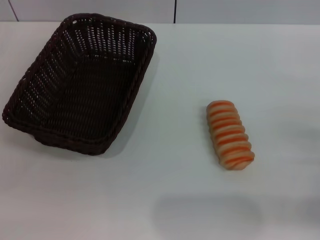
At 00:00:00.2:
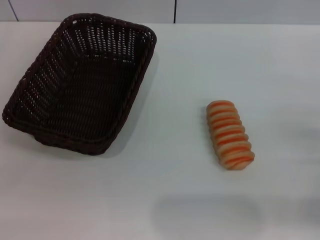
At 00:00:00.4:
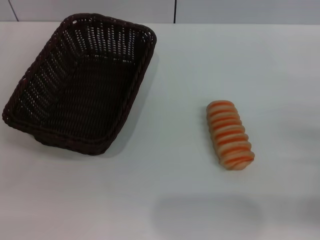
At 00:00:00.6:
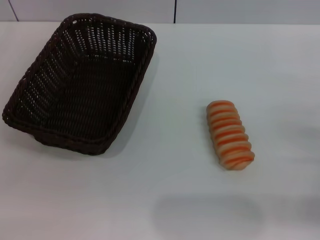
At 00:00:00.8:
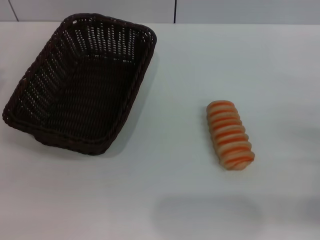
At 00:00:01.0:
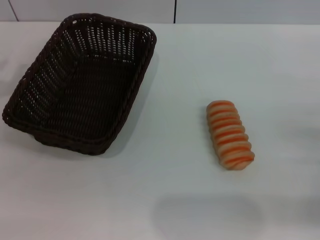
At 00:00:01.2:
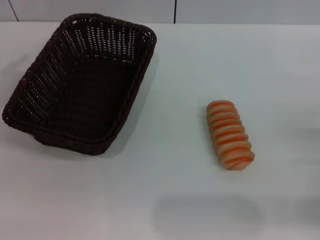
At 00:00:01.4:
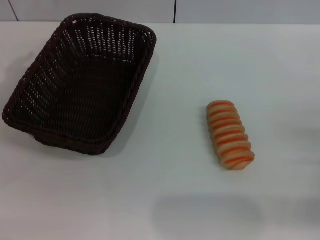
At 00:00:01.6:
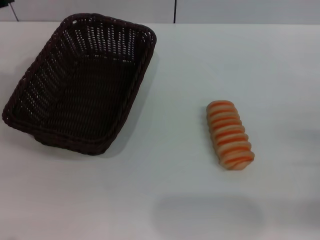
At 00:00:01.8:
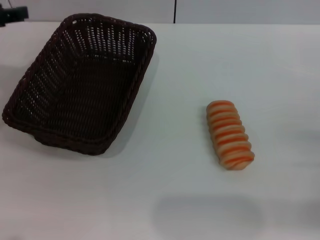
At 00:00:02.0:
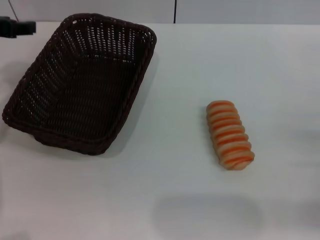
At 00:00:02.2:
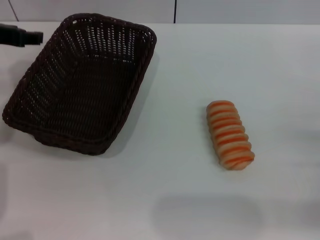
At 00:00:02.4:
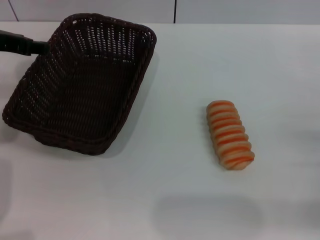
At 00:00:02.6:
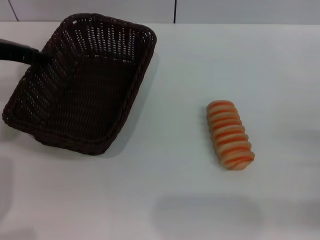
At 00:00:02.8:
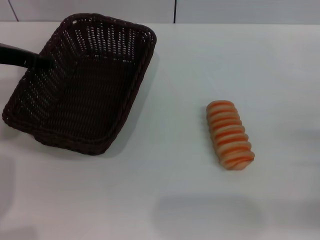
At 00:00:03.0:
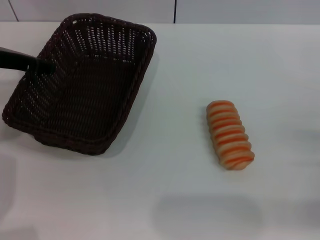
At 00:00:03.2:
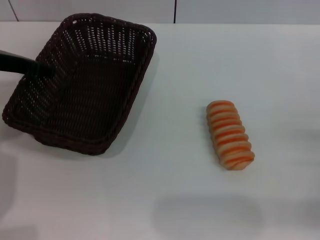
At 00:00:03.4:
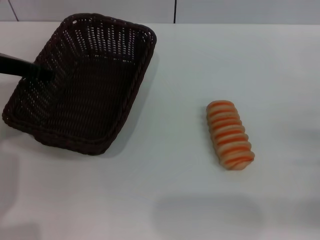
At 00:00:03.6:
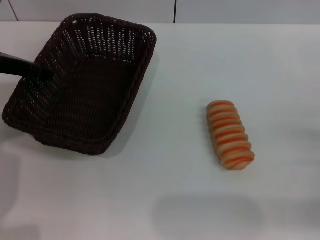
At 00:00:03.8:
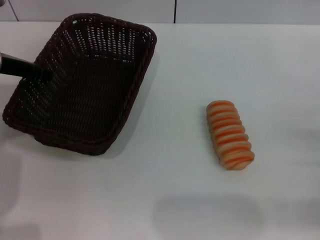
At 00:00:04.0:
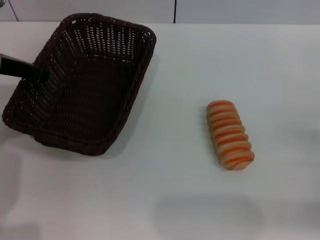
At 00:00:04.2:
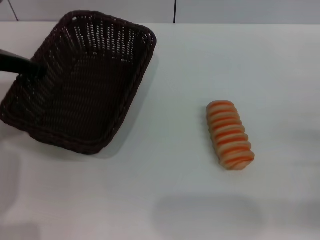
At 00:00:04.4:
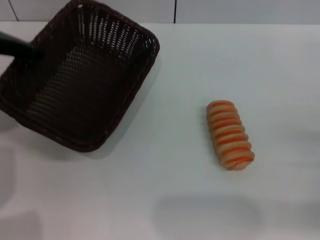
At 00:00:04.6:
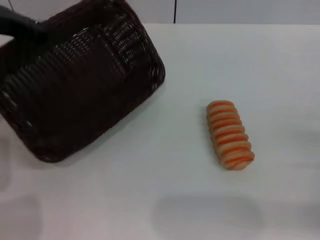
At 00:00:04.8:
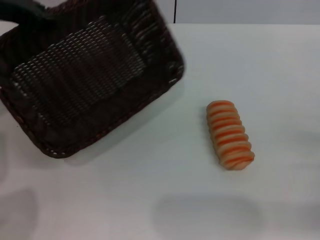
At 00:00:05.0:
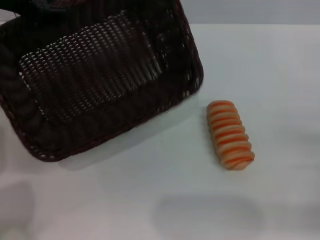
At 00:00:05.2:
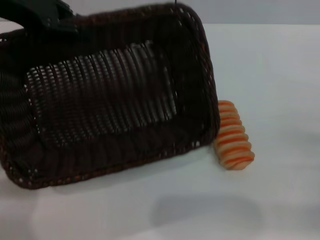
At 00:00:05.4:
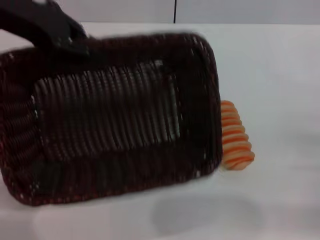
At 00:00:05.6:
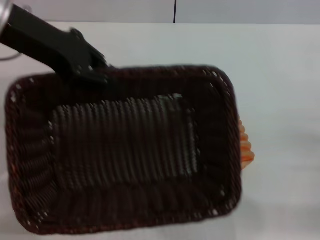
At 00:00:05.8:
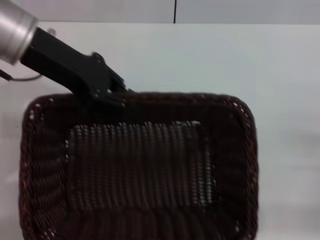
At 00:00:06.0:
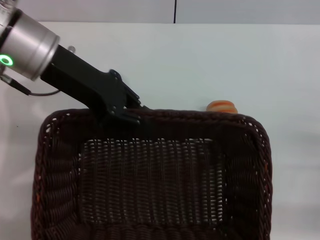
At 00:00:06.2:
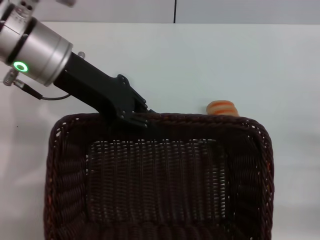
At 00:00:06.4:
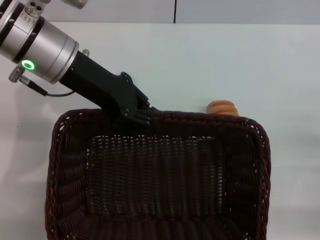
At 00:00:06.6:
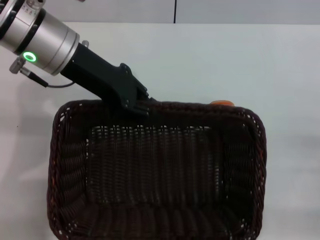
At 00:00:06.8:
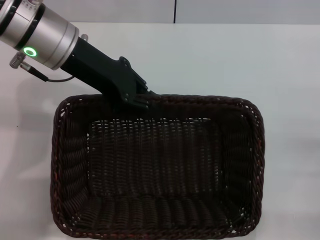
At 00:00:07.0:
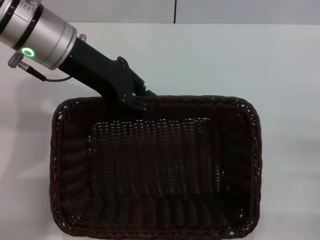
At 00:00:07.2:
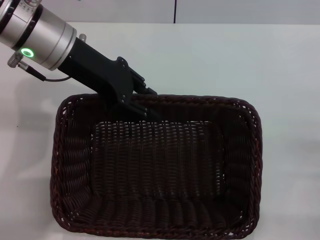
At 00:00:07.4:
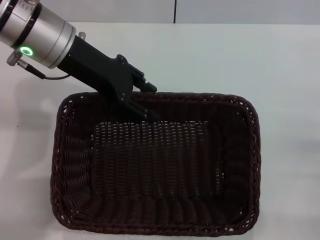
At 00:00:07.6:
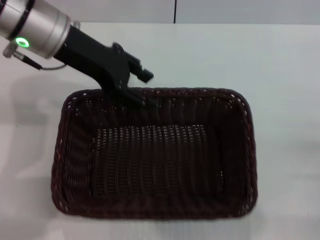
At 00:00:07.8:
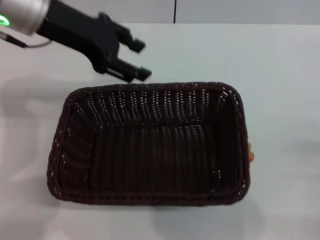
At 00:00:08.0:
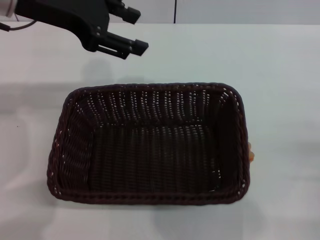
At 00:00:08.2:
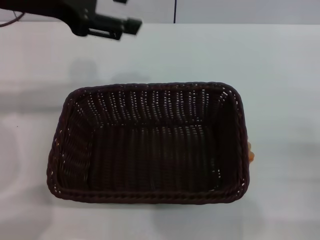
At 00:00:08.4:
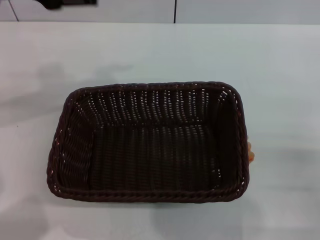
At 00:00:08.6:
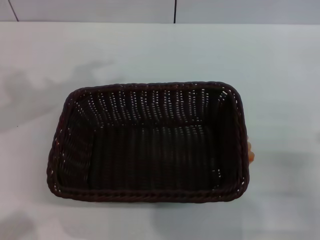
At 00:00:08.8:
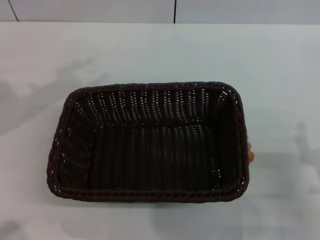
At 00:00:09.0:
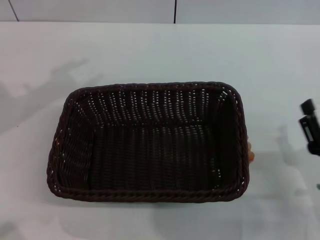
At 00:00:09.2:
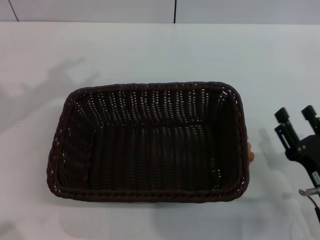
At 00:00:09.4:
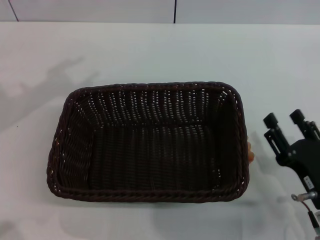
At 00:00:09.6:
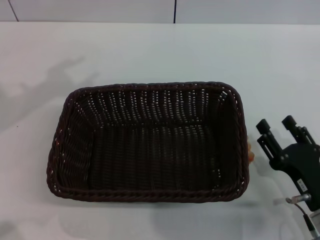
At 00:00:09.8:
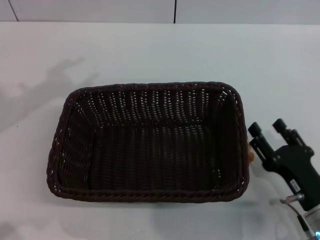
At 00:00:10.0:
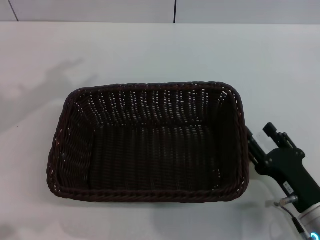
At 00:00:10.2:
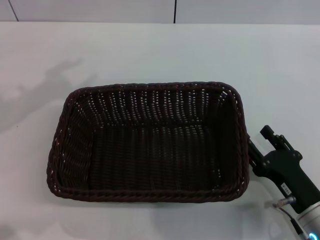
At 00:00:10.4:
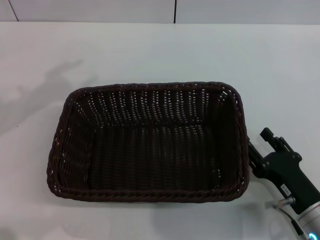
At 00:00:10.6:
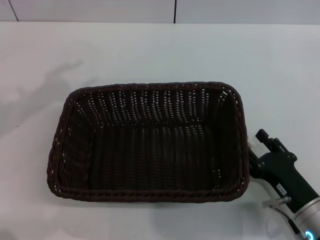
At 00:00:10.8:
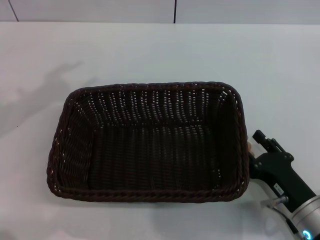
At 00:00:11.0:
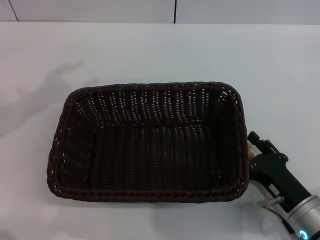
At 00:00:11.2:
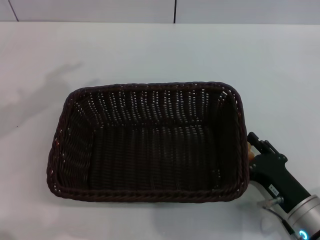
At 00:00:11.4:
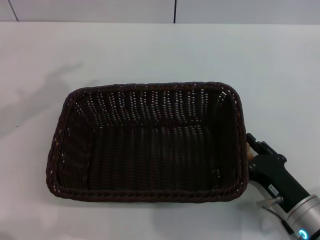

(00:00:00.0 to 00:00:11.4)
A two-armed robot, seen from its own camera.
Step, 00:00:00.0 - 00:00:03.8: Grasp the basket with the left gripper.
Step, 00:00:04.2 - 00:00:07.8: Place the basket in the center of the table with the left gripper.
00:00:01.4 - 00:00:02.8: The left gripper is displaced to the right by some 10 cm.
00:00:02.8 - 00:00:04.2: The left gripper closes its fingers.
00:00:04.2 - 00:00:05.6: The left gripper moves upward and to the right, about 10 cm.
00:00:05.6 - 00:00:07.2: The left gripper ends up about 5 cm from where it was.
00:00:07.2 - 00:00:08.6: The left gripper is displaced to the left by about 15 cm, and opens its fingers. The right gripper moves to the left, roughly 5 cm.
00:00:08.6 - 00:00:10.0: The right gripper travels to the left by some 5 cm.
00:00:10.0 - 00:00:11.4: The right gripper closes its fingers.

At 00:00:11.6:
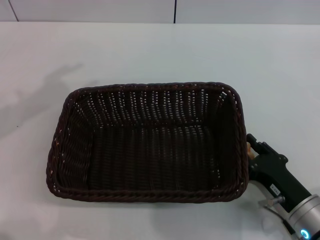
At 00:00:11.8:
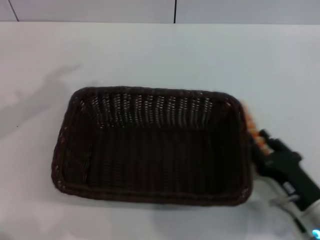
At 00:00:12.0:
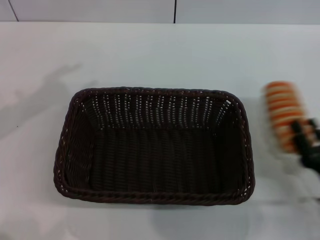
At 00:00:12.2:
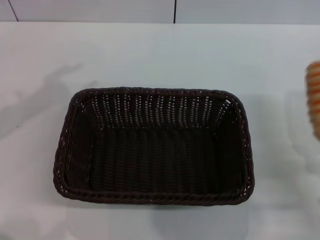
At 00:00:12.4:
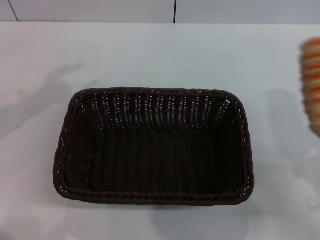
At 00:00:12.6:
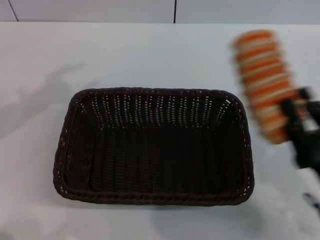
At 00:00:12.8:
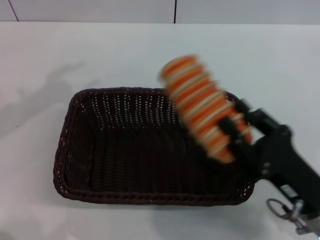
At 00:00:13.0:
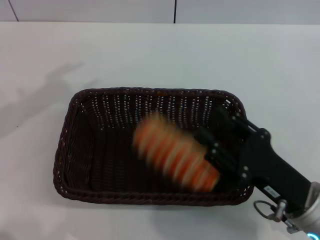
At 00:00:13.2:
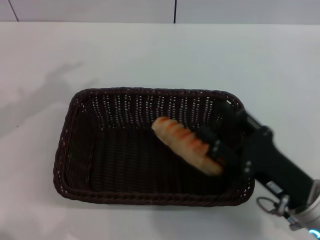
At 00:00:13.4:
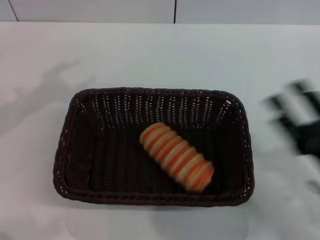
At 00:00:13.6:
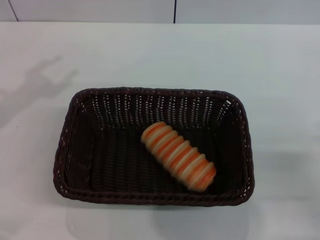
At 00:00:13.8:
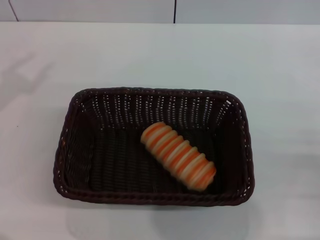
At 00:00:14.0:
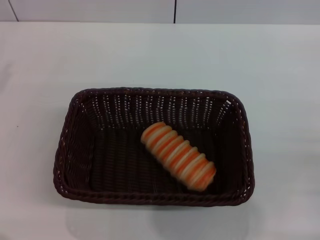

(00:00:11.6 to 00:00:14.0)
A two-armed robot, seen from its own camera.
Step, 00:00:12.0 - 00:00:13.2: Place the long bread in the basket with right gripper.
00:00:11.6 - 00:00:12.8: The right gripper goes approximately 5 cm upward, goes to the right and returns, approximately 5 cm each way, and closes up.
00:00:12.8 - 00:00:14.0: The left gripper moves downward and to the left, approximately 15 cm. Meanwhile the right gripper goes approximately 15 cm to the right, and opens its fingers.
